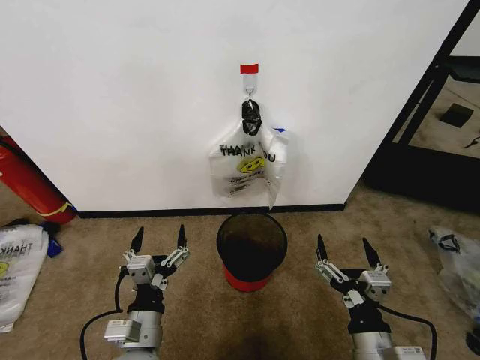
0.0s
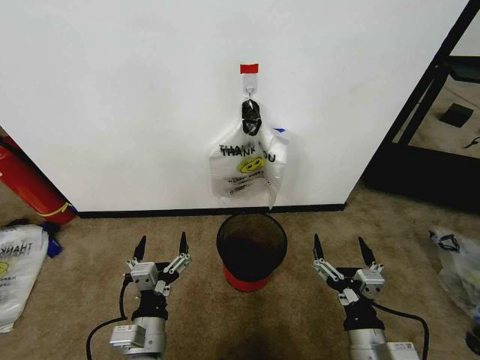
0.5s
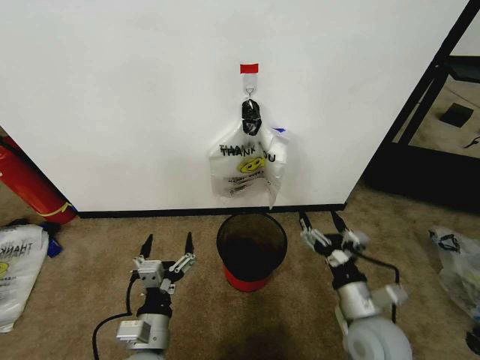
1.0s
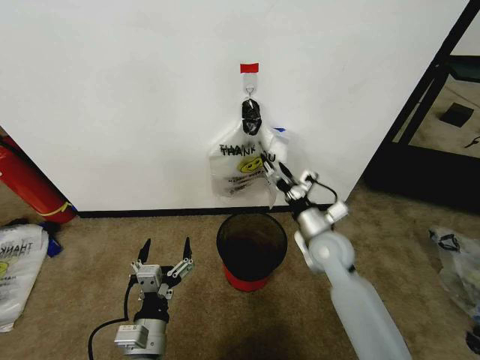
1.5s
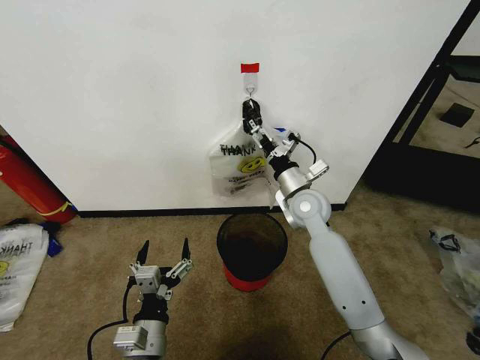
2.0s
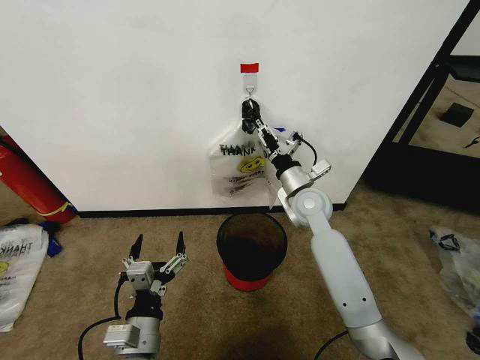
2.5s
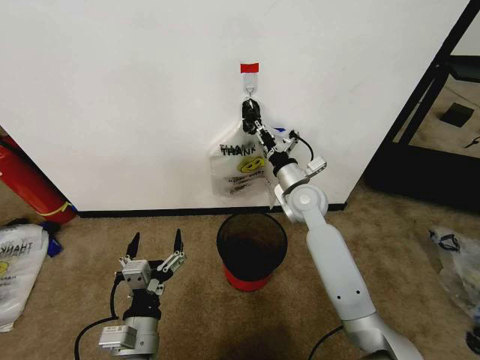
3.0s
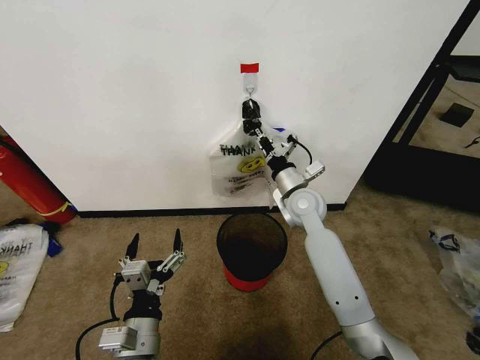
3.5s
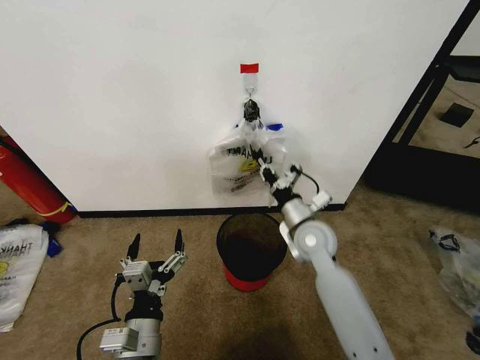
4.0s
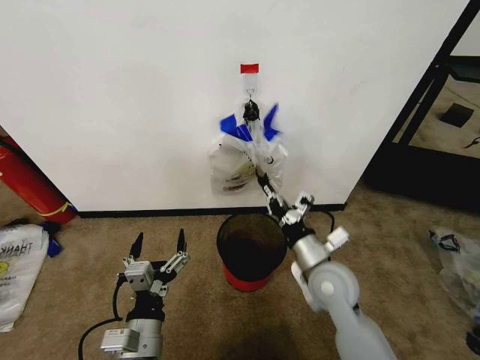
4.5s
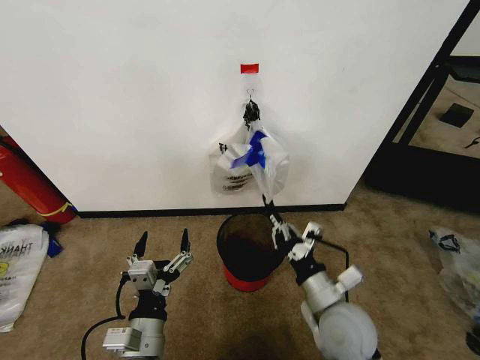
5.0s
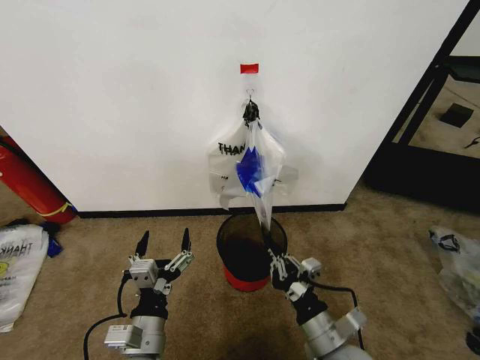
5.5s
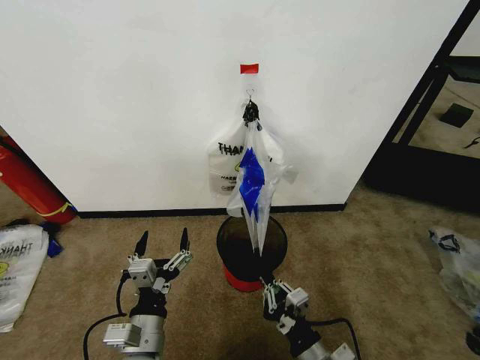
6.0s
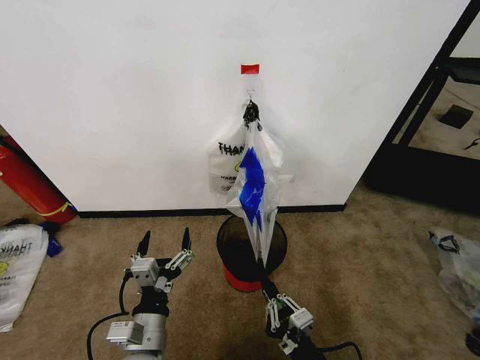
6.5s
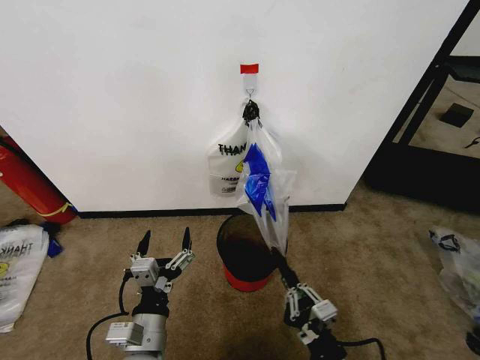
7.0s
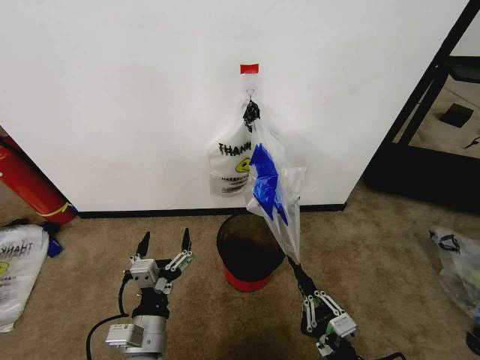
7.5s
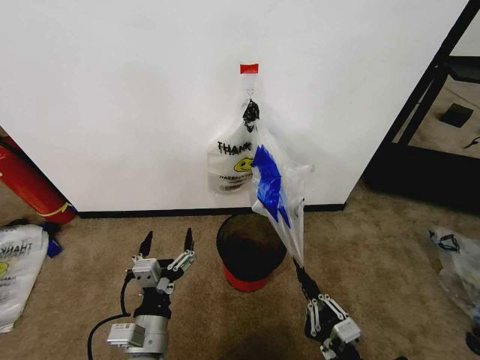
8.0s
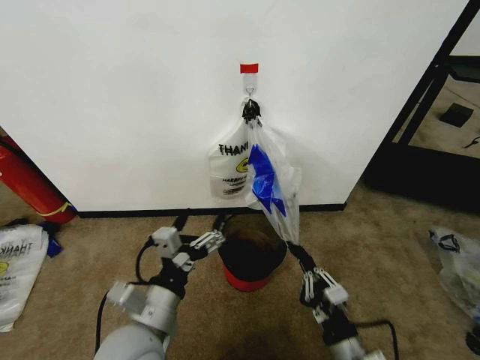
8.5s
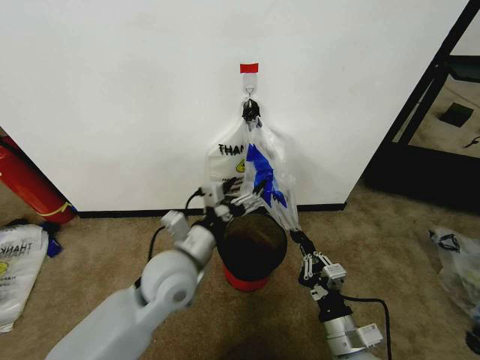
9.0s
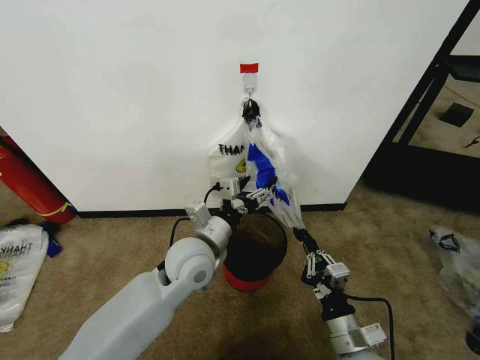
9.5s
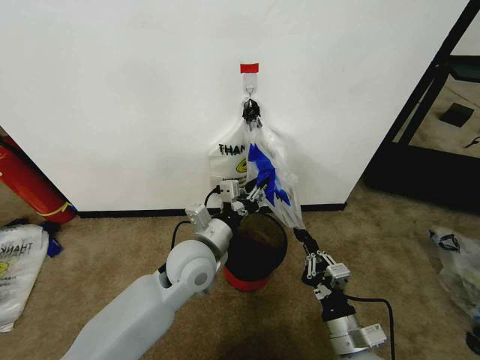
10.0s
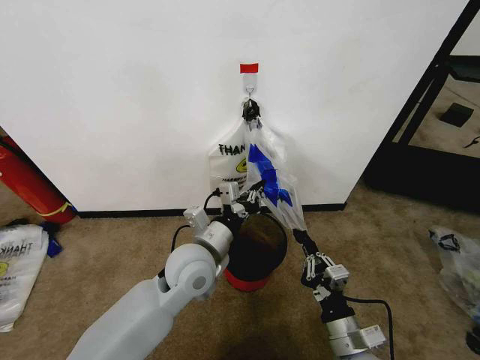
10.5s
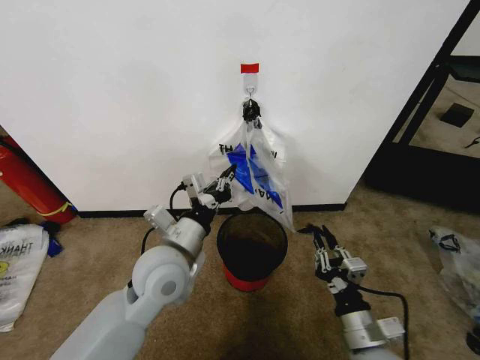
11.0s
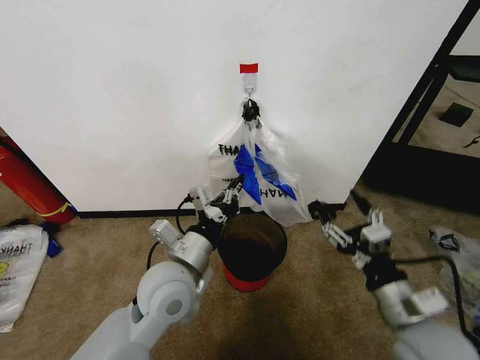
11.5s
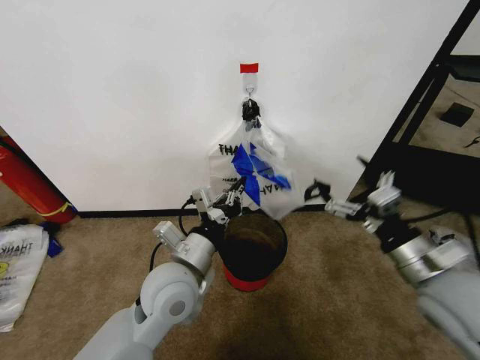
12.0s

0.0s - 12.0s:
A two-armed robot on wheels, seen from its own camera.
Task of the whole recording: Pick up the garbage bag from the wall and place it over the trash bin.
2.0s - 4.0s: The right gripper shifts roughly 5 cm backward, and closes up.
4.0s - 6.0s: The right gripper is displaced backward by about 30 cm.
6.0s - 8.0s: The right gripper heads to the right, covering some 5 cm.
8.0s - 10.0s: The left gripper travels forward and upward by approximately 20 cm, and closes up; the right gripper is displaced forward by some 10 cm.
10.0s - 12.0s: The right gripper shifts about 20 cm upward, to the right and forward, and opens. The left gripper travels backward by some 5 cm.

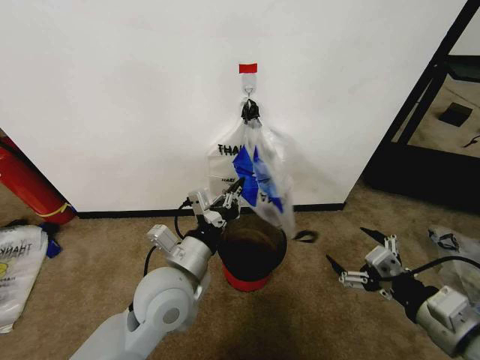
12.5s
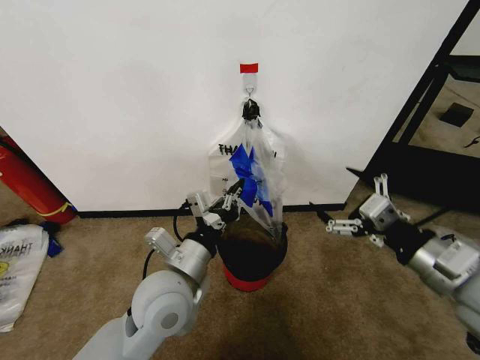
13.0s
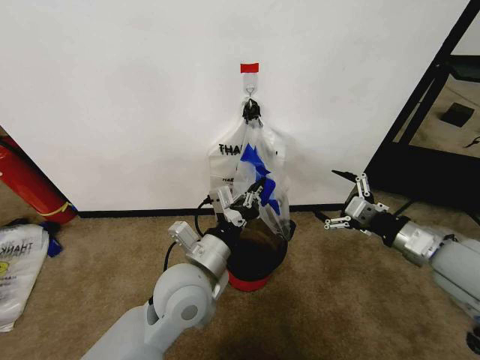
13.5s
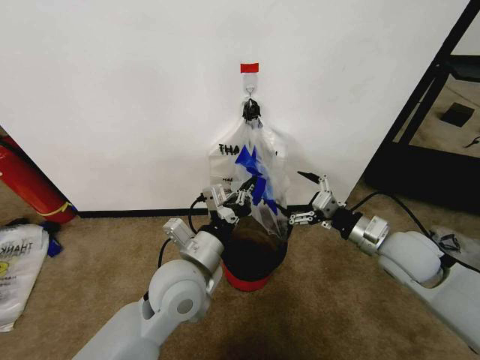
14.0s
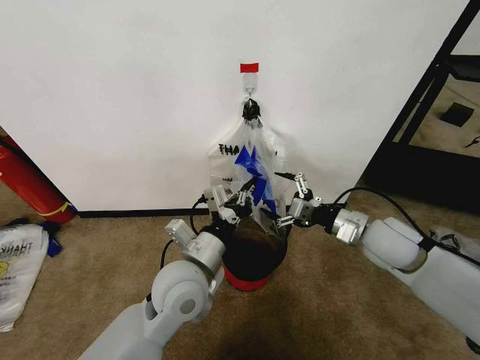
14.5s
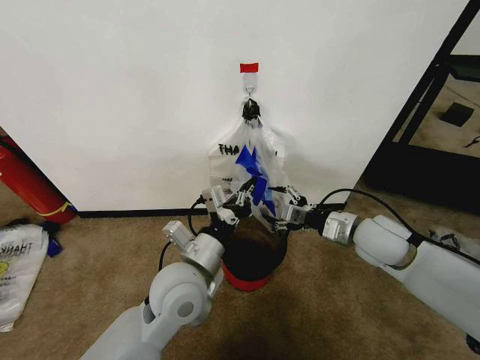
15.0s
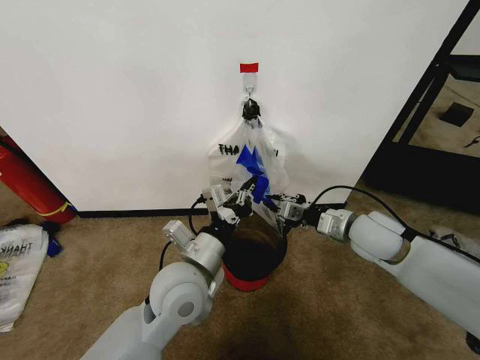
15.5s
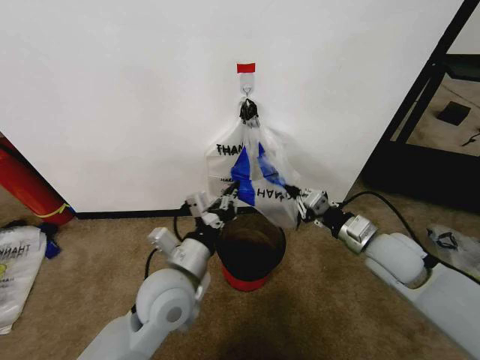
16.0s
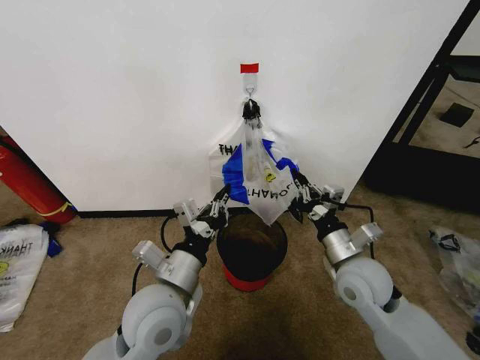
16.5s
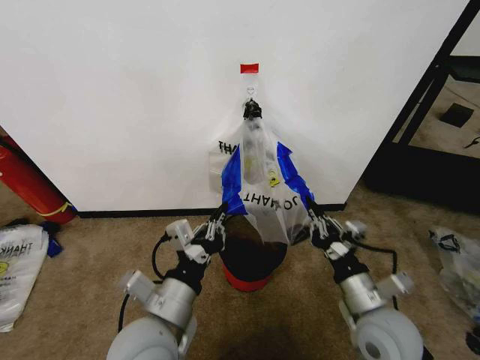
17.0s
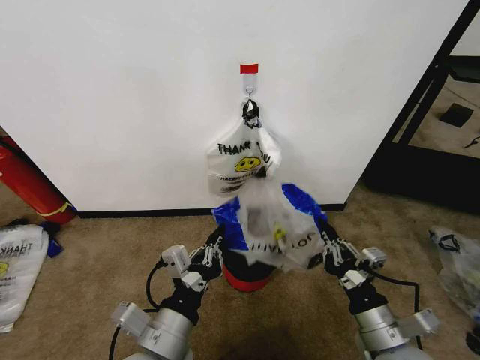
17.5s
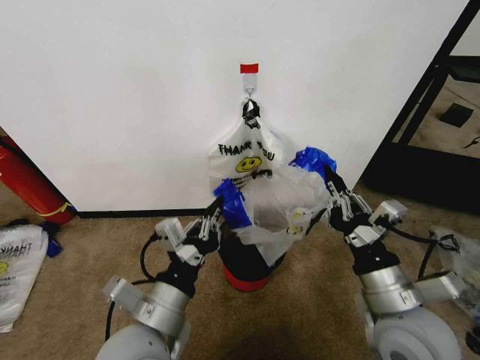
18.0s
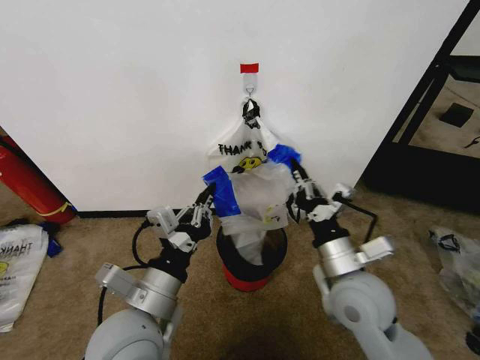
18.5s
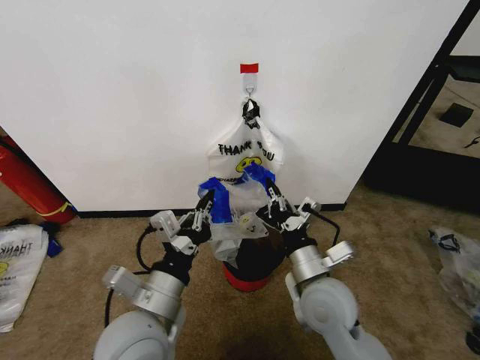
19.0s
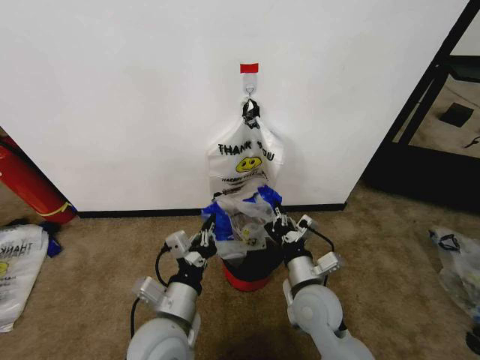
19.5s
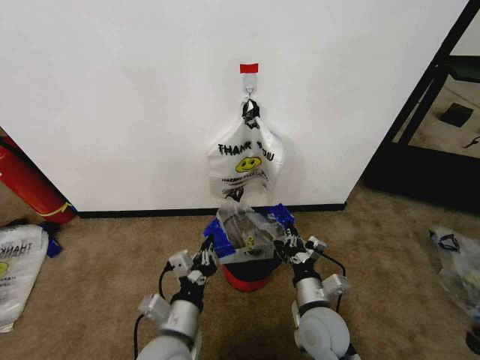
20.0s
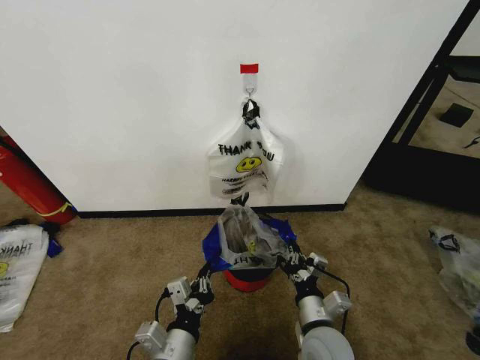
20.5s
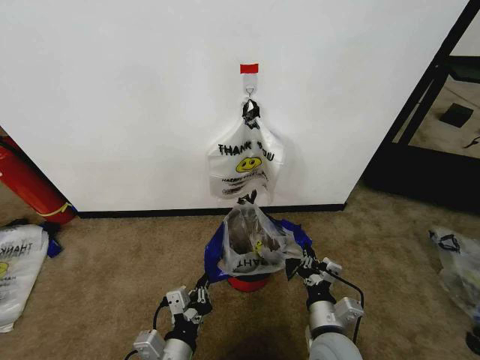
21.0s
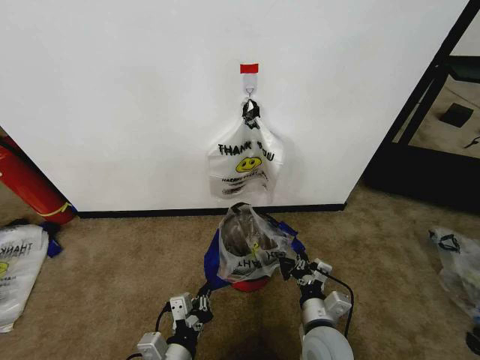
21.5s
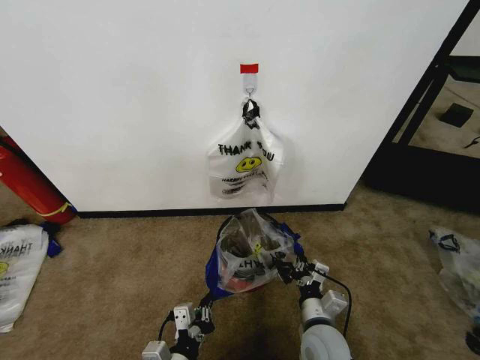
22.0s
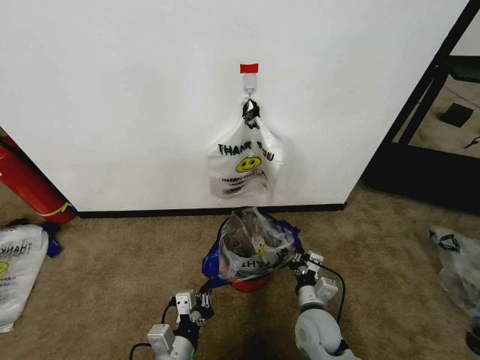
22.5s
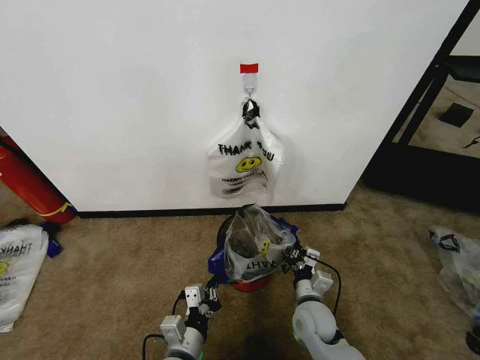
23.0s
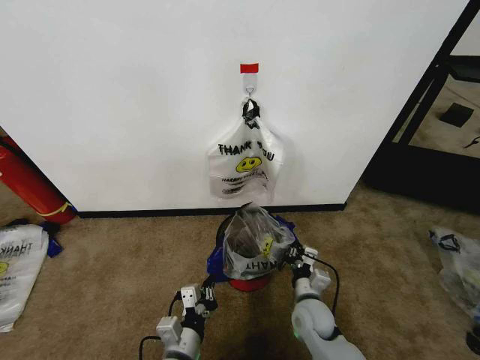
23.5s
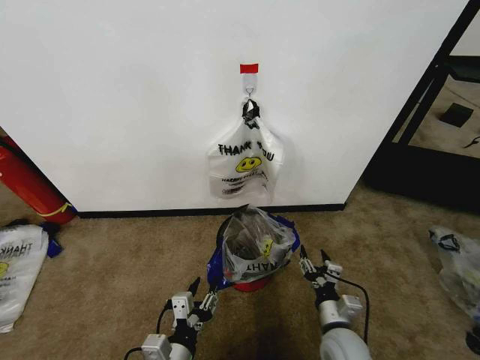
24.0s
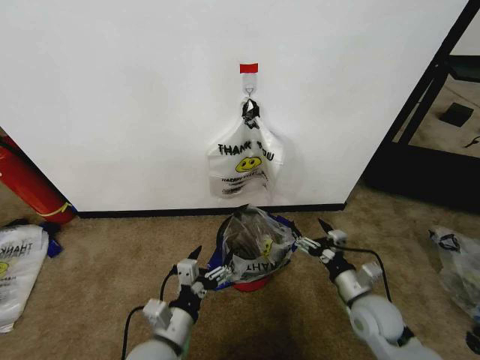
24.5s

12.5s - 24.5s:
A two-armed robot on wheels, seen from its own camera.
Task of the whole recording: Pick up the garbage bag from the wall and place it over the trash bin.
12.5s - 14.5s: The right gripper is displaced forward by approximately 20 cm.
14.5s - 16.5s: The left gripper shifts by some 5 cm; the right gripper is displaced backward, to the left and downward by about 10 cm, and closes its fingers.
16.5s - 18.5s: The right gripper reaches approximately 15 cm backward, then returns.
18.5s - 20.5s: Both grippers move downward, roughly 15 cm.
20.5s - 22.5s: Both grippers move downward, about 5 cm.
22.5s - 24.5s: The left gripper moves about 5 cm, and opens its fingers. The right gripper moves to the right and upward, about 15 cm, and opens up.

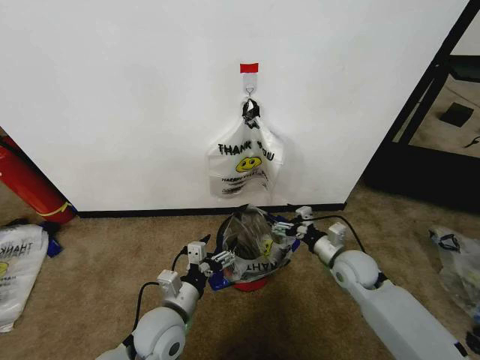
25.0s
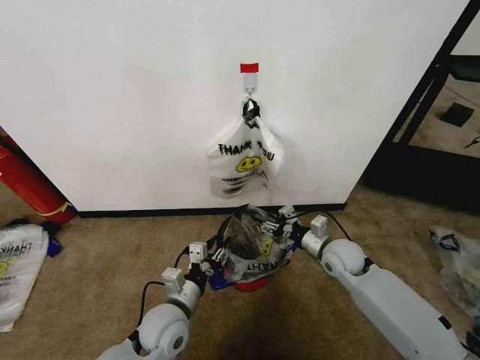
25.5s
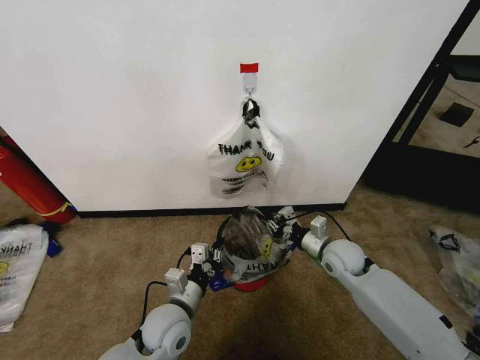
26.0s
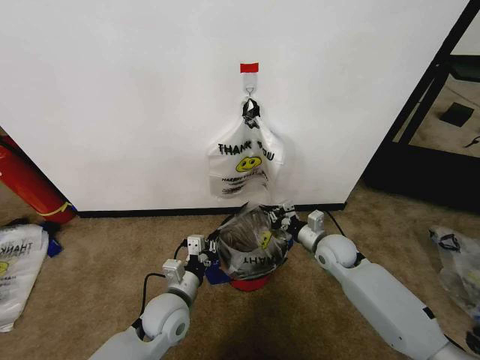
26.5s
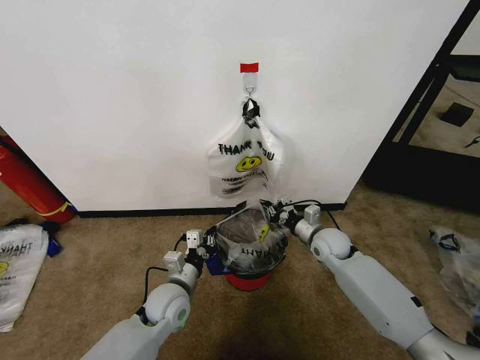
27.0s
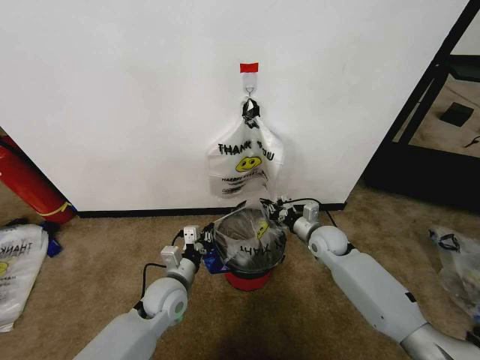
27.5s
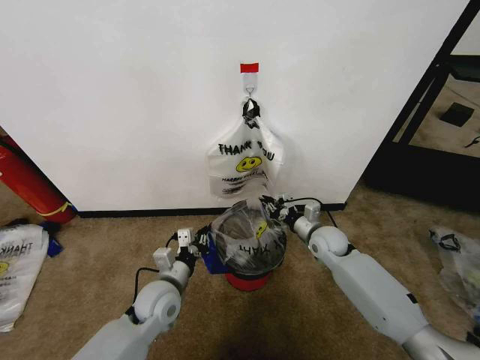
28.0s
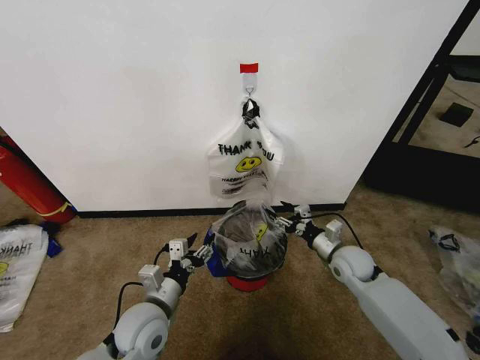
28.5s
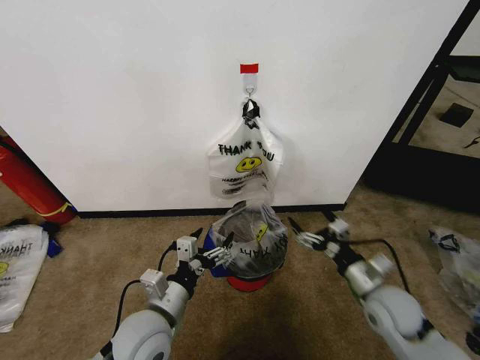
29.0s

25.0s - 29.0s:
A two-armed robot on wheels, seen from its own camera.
Task of the whole recording: Pick up the garbage bag from the wall and place it over the trash bin.
25.0s - 27.0s: Both grippers travel together forward, approximately 10 cm. The left gripper closes its fingers; the right gripper closes up.
27.0s - 29.0s: The right gripper travels backward by about 15 cm, and opens; the left gripper shifts roughly 10 cm backward and upward, and opens.
